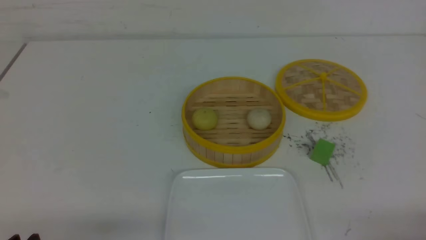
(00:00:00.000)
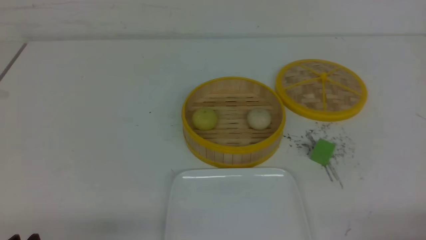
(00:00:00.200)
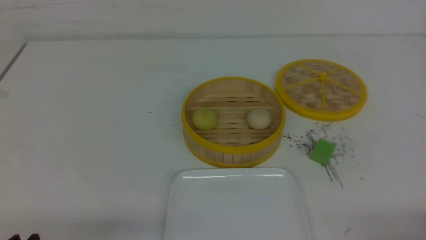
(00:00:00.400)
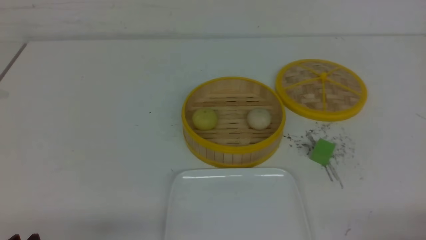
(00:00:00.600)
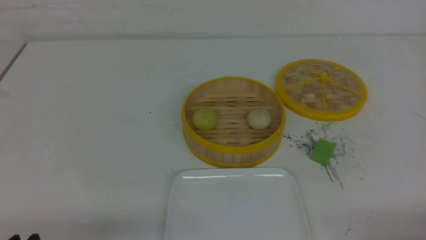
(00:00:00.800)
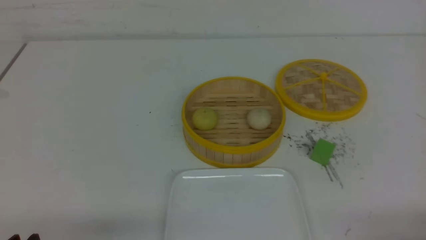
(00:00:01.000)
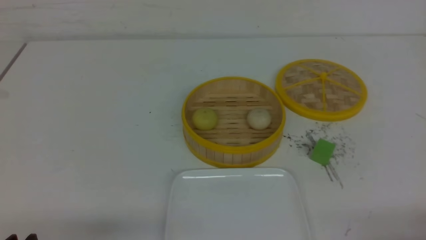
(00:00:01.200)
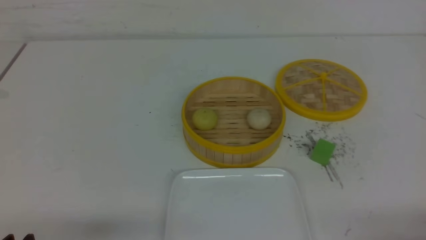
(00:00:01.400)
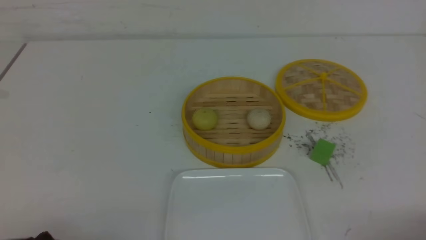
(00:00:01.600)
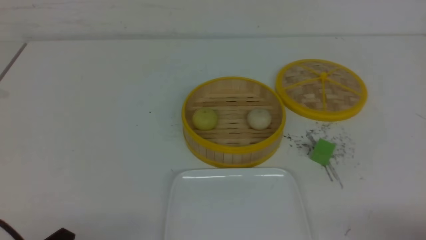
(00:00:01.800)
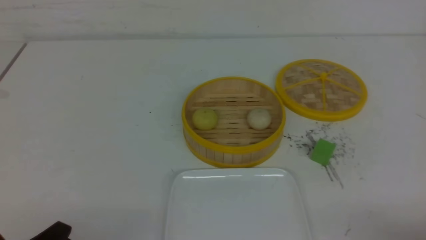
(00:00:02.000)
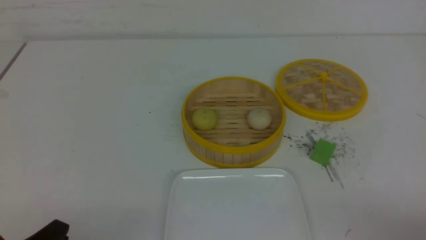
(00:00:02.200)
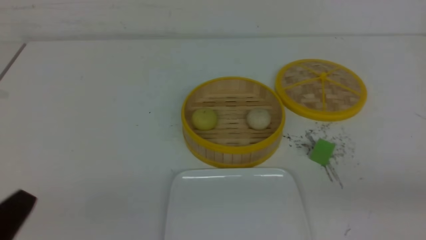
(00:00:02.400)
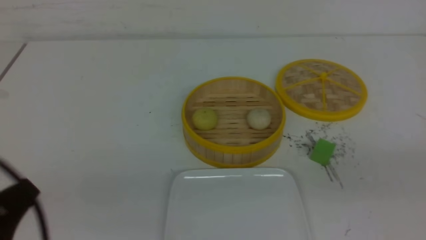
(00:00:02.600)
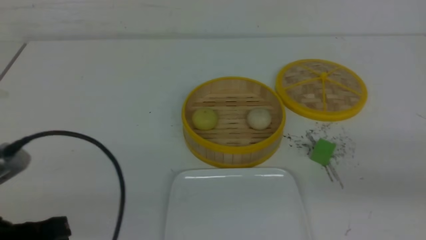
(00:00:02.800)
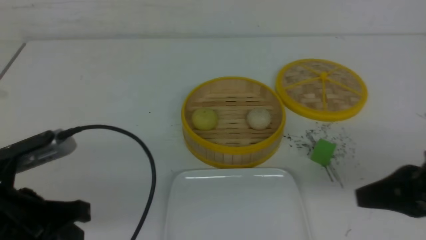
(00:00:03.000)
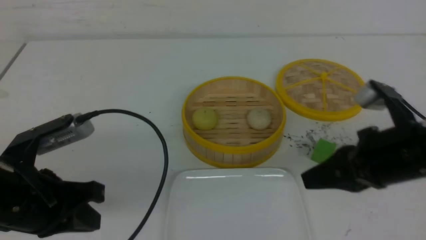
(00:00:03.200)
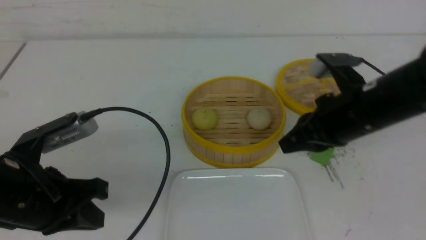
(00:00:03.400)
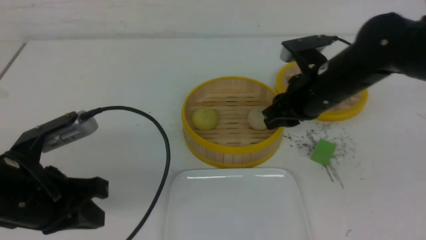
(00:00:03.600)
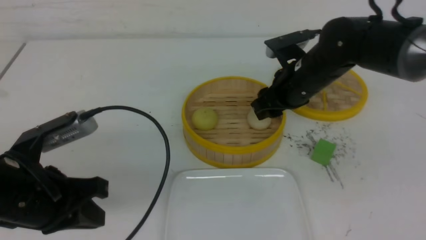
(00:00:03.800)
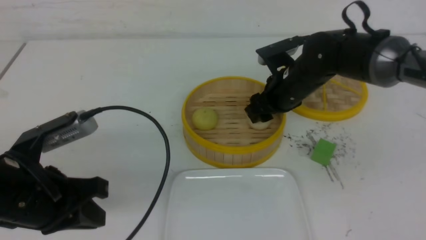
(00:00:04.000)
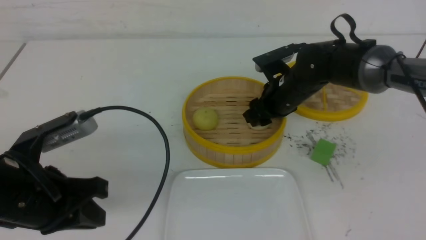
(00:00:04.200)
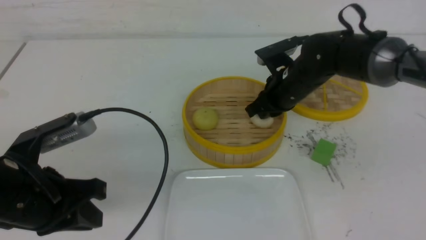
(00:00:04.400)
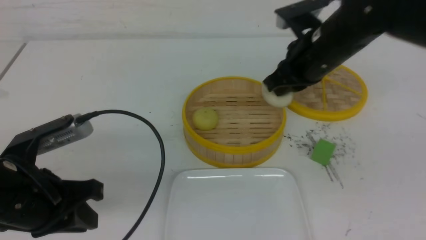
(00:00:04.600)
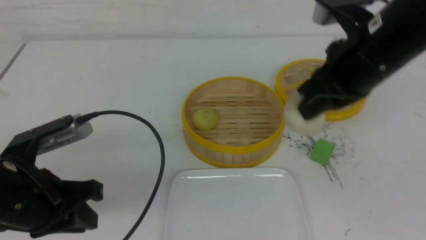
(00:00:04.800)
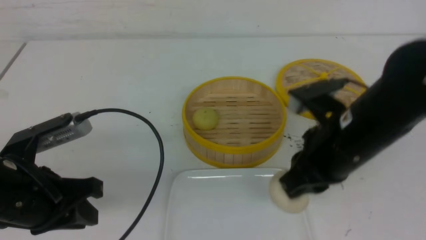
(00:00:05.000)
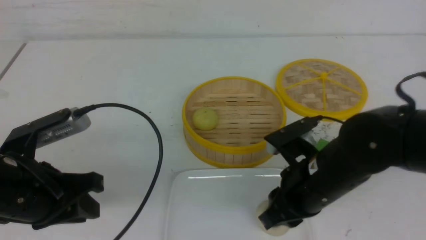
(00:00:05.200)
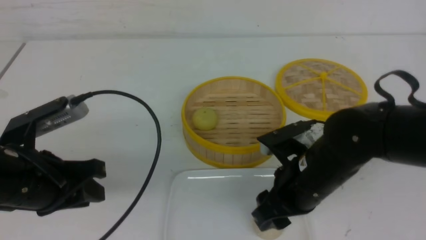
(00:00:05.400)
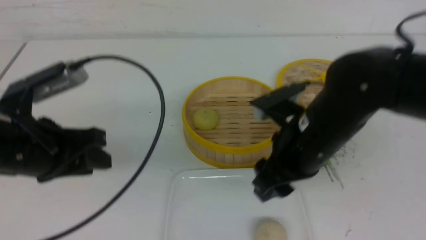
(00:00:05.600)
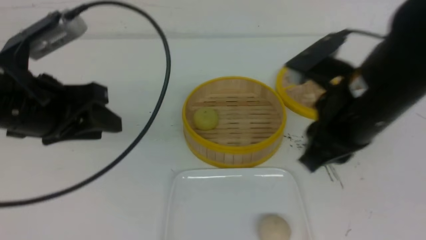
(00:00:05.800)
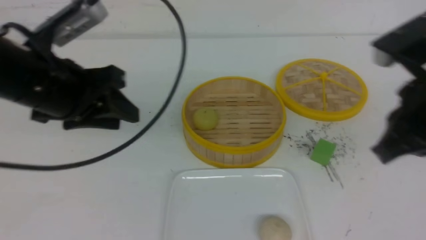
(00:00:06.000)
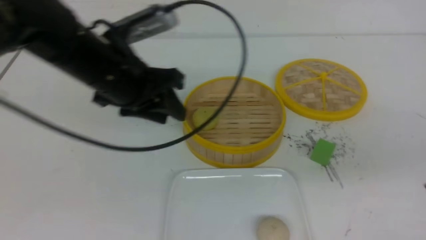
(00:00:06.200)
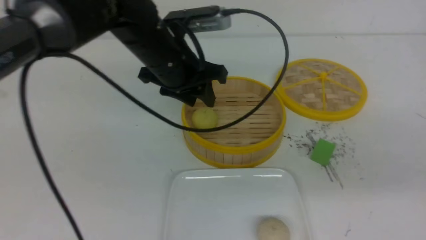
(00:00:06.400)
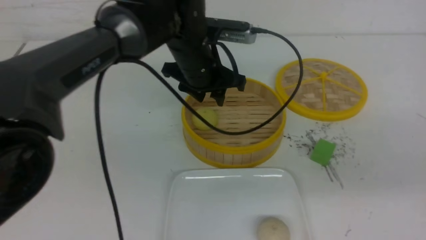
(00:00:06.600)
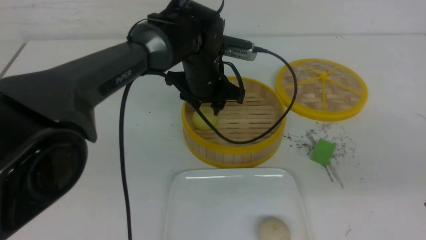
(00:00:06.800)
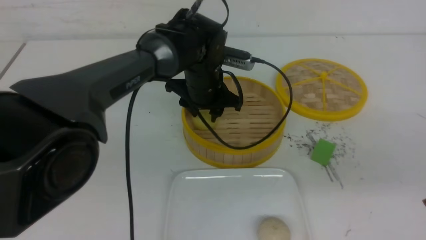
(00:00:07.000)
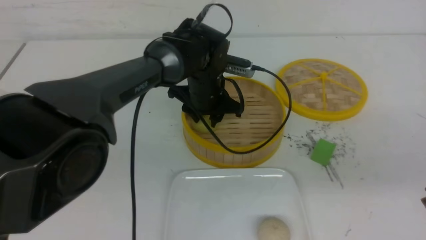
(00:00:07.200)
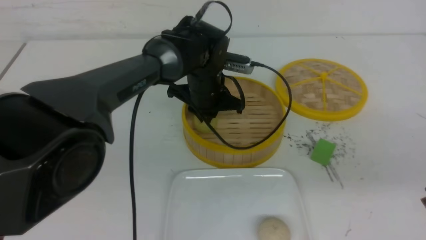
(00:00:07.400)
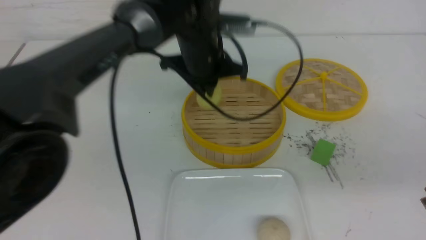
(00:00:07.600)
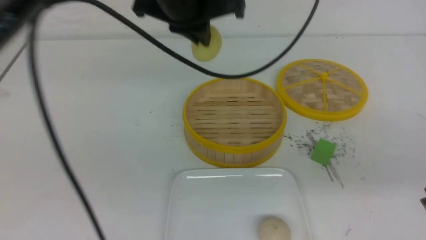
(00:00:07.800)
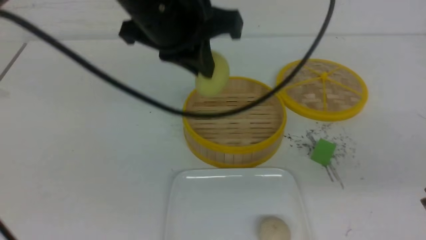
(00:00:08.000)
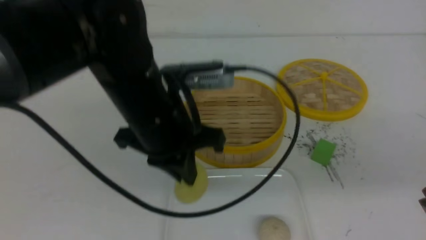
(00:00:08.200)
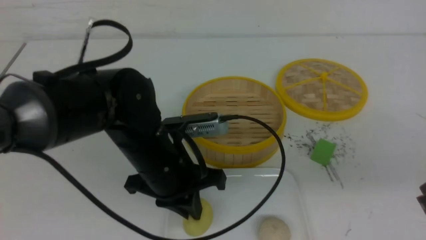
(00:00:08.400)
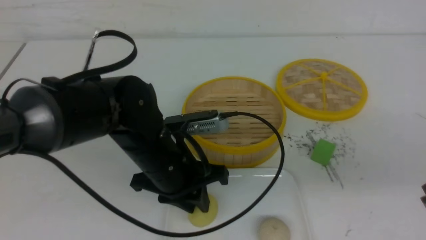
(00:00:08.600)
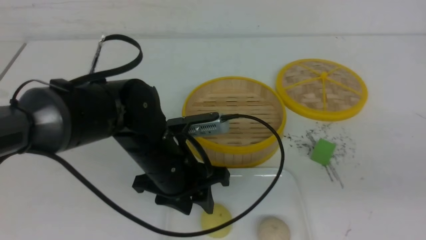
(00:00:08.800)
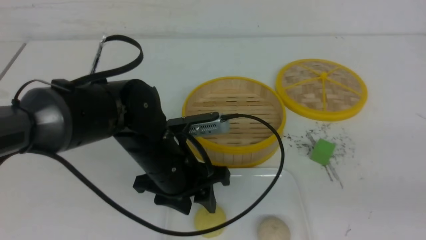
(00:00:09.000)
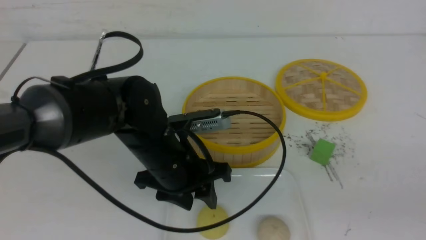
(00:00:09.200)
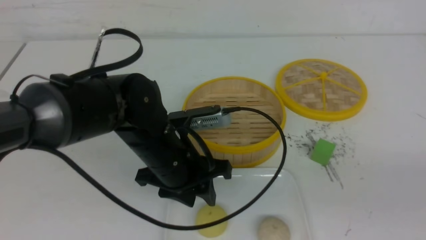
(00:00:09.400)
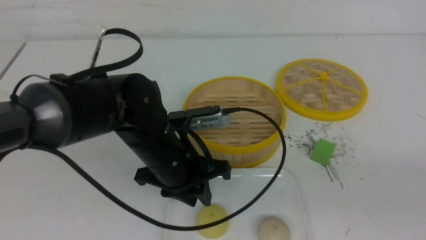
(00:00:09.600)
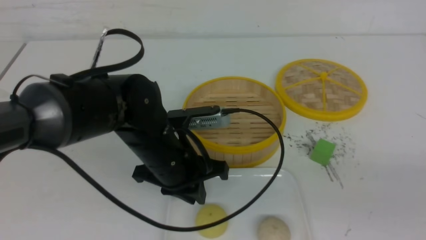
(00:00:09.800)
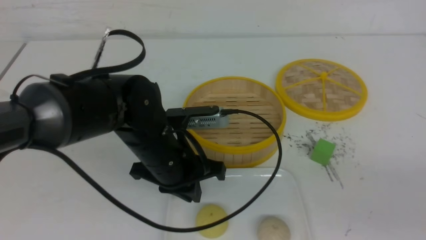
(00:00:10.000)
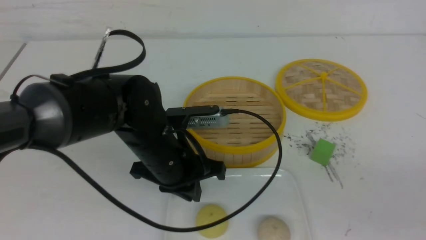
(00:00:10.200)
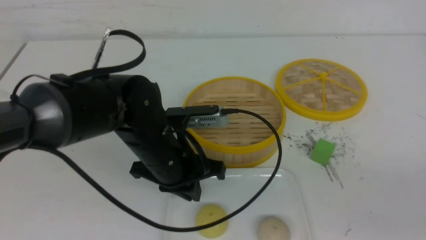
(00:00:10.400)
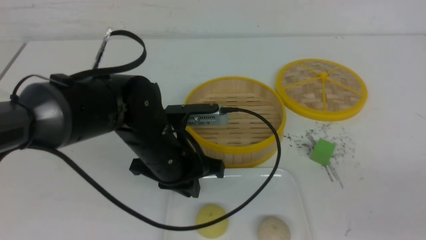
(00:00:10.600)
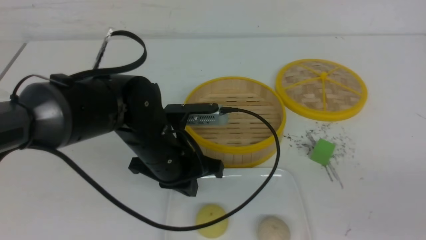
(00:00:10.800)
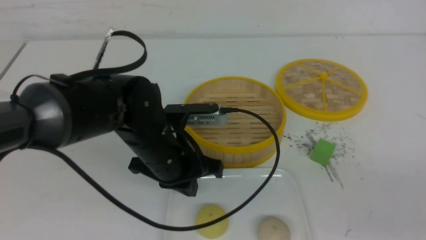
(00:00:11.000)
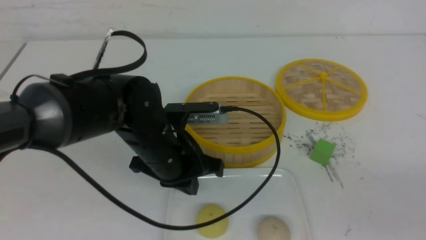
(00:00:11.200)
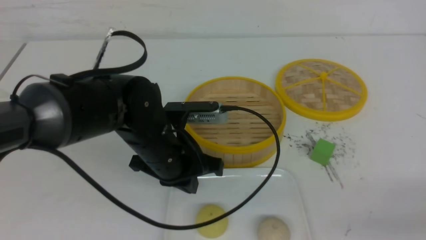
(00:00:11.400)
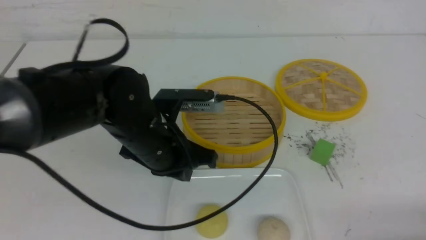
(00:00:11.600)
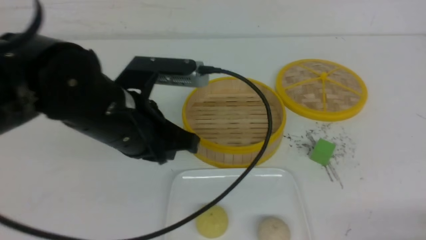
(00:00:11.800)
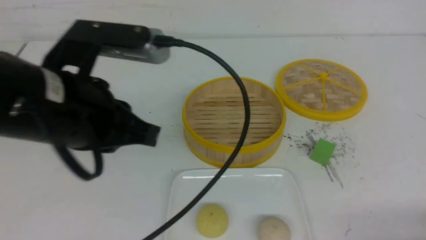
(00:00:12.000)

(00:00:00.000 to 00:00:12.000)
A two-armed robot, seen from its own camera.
Step, 00:00:00.000 - 00:00:04.400: use the right arm to grab the steamed stuffed bun that is closest to it.
Step, 00:00:04.600 - 00:00:05.400: use the right arm to put the steamed stuffed bun into the plate.
Step, 00:00:05.600 - 00:00:07.200: use the left arm to grab the steamed stuffed bun that is closest to it.
Step, 00:00:07.600 - 00:00:08.600: use the left arm to put the steamed stuffed bun into the plate.
00:00:01.600 - 00:00:03.000: The right gripper travels upward, forward and to the left by roughly 20 cm, and closes its fingers. The left gripper travels upward and forward by about 15 cm, and closes.
00:00:03.000 - 00:00:04.400: The right gripper travels forward and to the left by some 25 cm, and opens, then closes again.
00:00:04.400 - 00:00:06.000: The left gripper moves forward and upward, approximately 10 cm, and opens; the right gripper travels backward, upward and to the right by about 25 cm, and opens, then closes once more.
00:00:06.000 - 00:00:07.600: The left gripper travels to the right and forward by approximately 20 cm, and closes up, while the right gripper moves to the right, roughly 5 cm.
00:00:07.600 - 00:00:09.000: The left gripper goes about 15 cm backward and downward, and opens its fingers. Meanwhile the right gripper goes some 10 cm backward.
00:00:09.000 - 00:00:10.400: The right gripper travels downward by approximately 5 cm. The left gripper closes up.
00:00:10.400 - 00:00:12.000: The left gripper is displaced upward, backward and to the left by about 20 cm, while the right gripper goes roughly 10 cm downward.

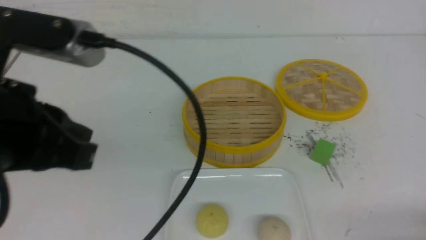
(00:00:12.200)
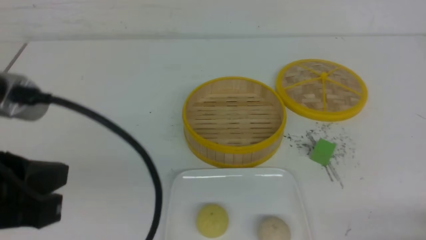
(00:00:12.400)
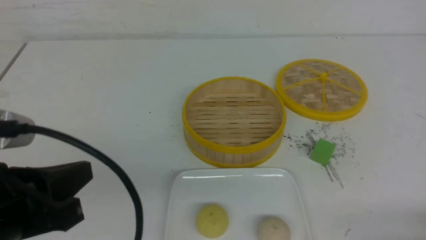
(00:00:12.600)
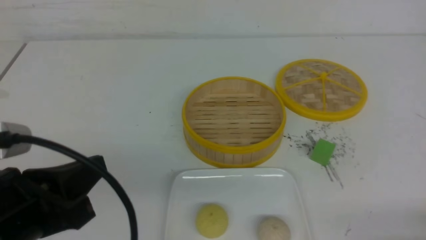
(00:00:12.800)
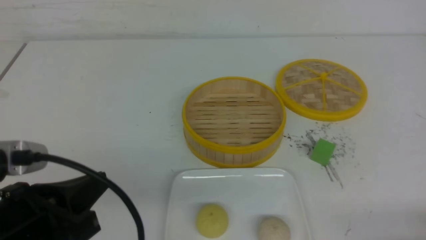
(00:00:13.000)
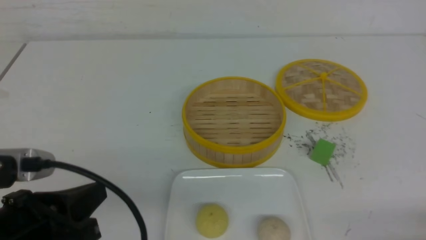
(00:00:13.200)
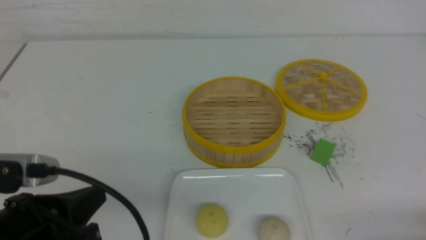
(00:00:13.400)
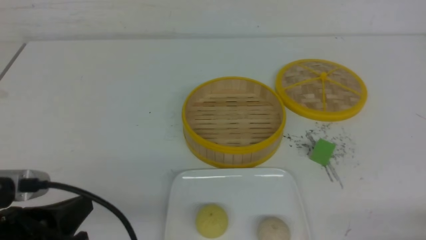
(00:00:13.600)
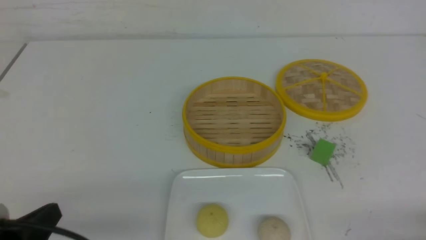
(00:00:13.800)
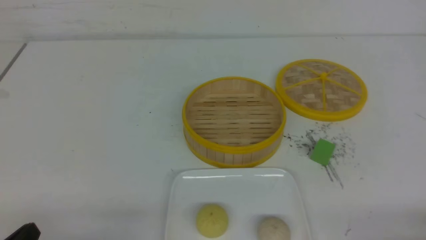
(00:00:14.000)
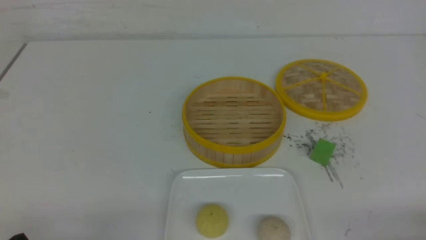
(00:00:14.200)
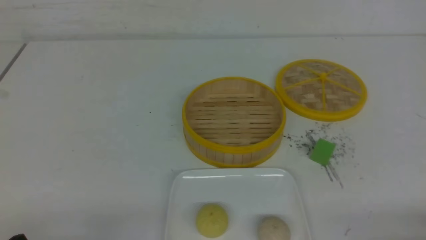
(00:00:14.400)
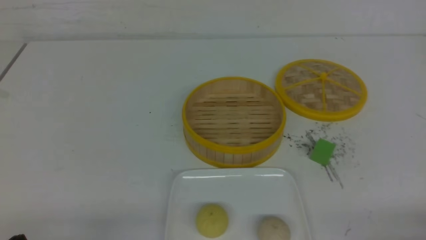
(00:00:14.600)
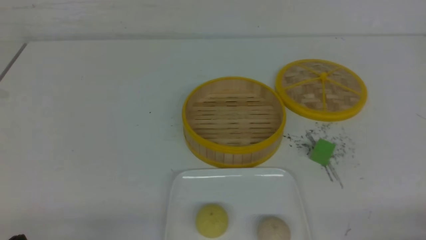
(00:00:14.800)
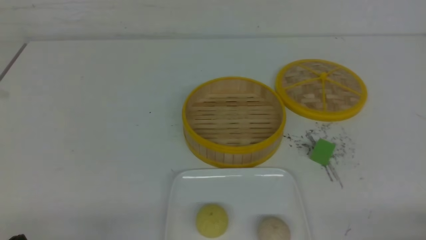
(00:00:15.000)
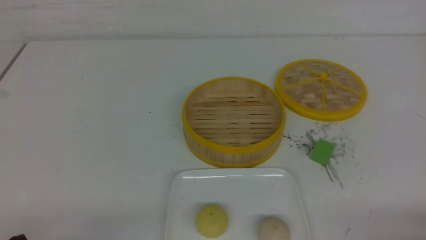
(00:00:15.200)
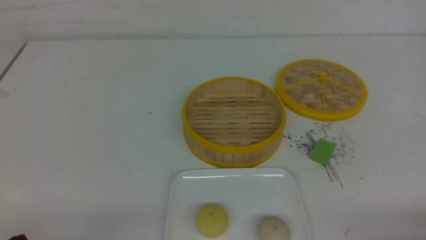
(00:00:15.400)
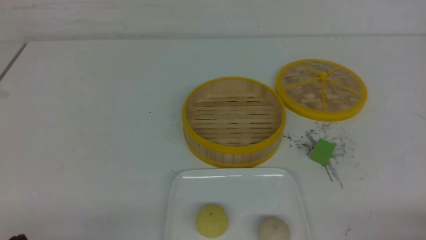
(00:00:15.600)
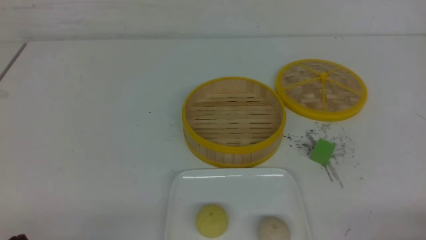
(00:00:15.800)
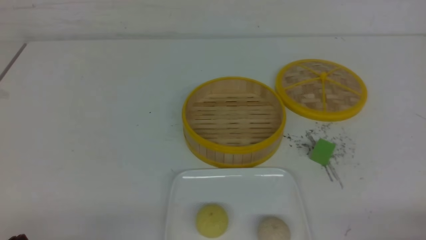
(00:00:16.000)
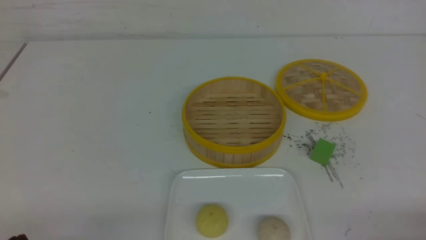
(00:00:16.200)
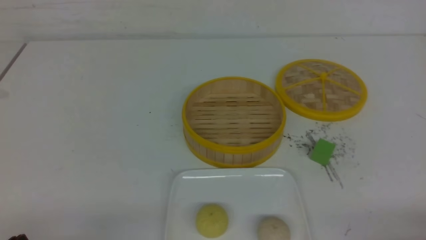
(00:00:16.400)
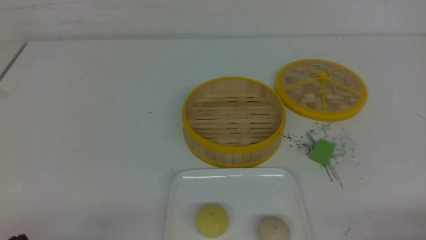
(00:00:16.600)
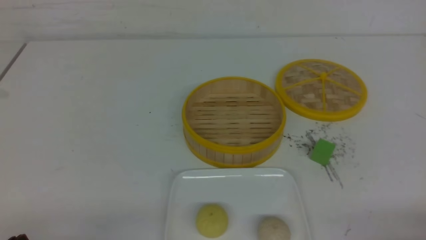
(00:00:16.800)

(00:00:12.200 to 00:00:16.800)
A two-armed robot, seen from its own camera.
00:00:12.200 - 00:00:13.800: The left gripper travels downward and backward by approximately 15 cm.
00:00:13.800 - 00:00:15.200: The left gripper ends up some 5 cm from where it was.
00:00:15.200 - 00:00:16.800: The two grippers keep their place.
